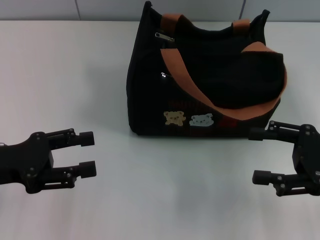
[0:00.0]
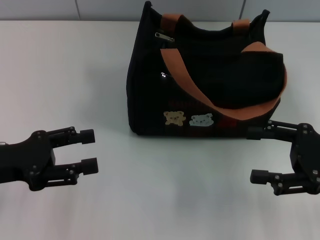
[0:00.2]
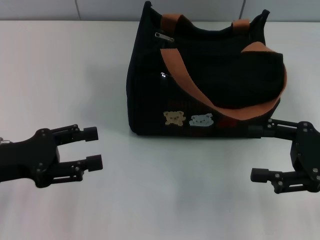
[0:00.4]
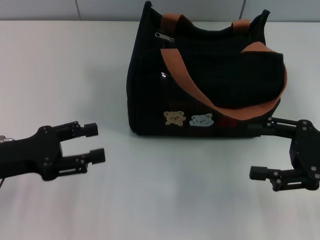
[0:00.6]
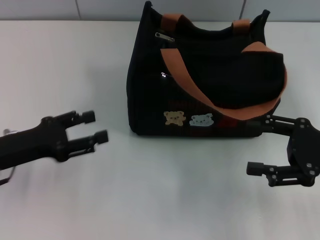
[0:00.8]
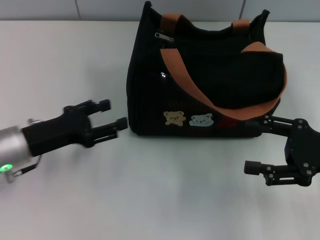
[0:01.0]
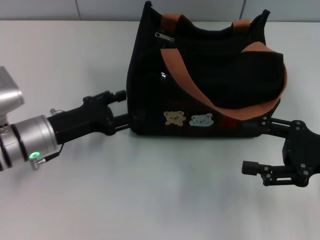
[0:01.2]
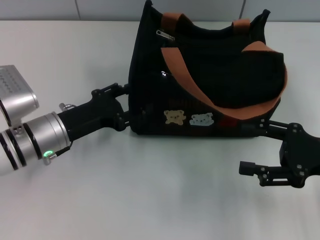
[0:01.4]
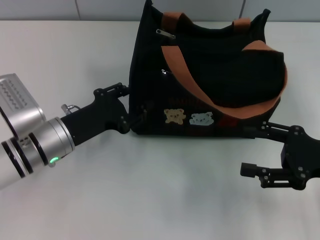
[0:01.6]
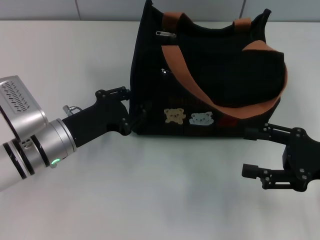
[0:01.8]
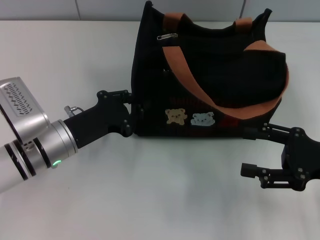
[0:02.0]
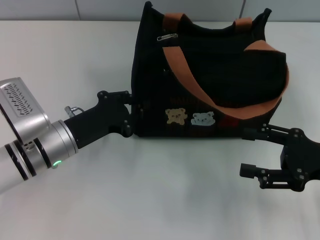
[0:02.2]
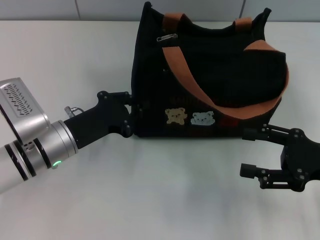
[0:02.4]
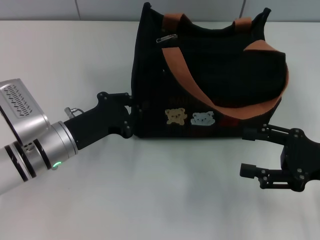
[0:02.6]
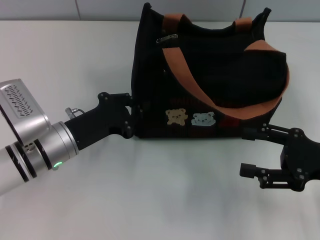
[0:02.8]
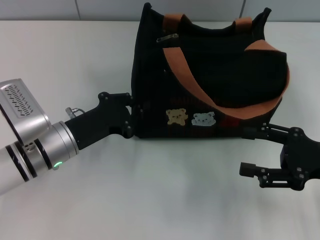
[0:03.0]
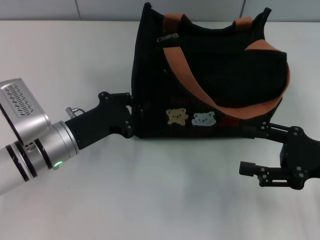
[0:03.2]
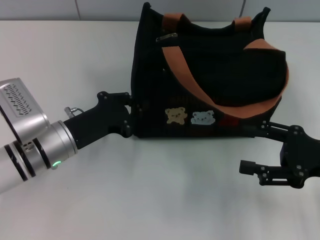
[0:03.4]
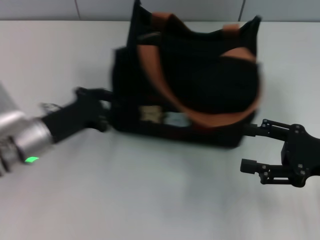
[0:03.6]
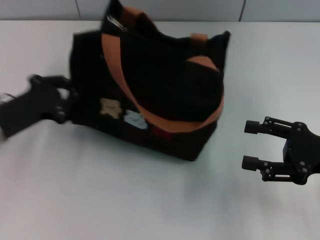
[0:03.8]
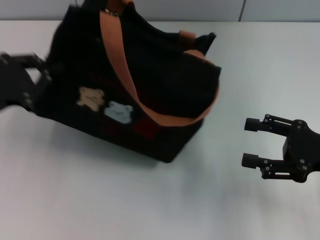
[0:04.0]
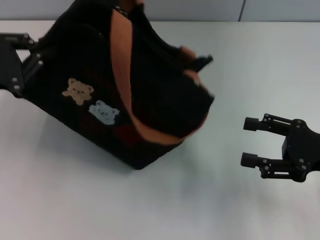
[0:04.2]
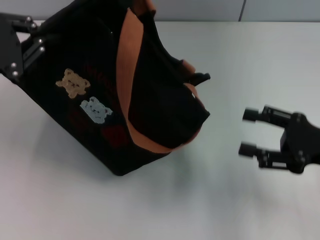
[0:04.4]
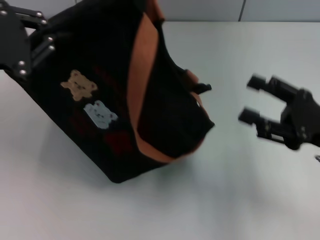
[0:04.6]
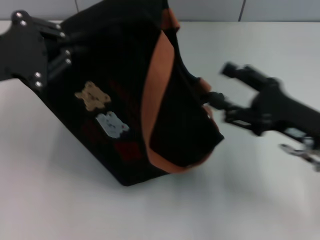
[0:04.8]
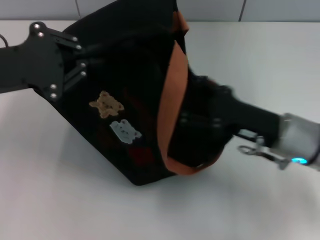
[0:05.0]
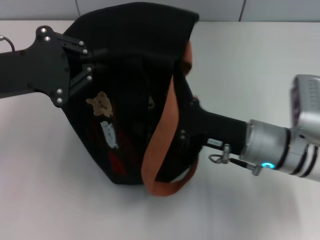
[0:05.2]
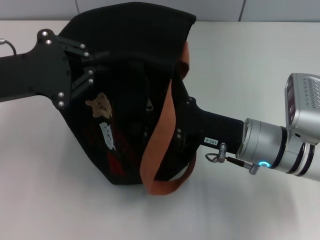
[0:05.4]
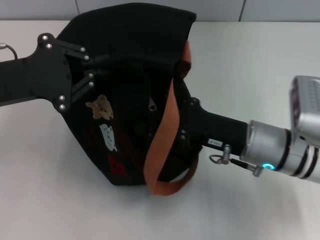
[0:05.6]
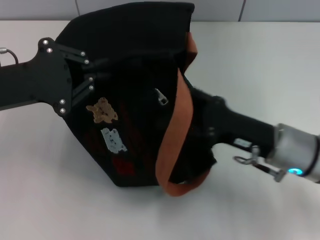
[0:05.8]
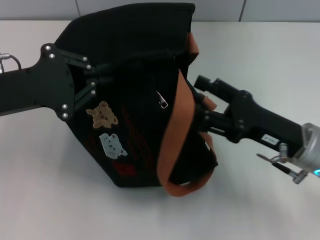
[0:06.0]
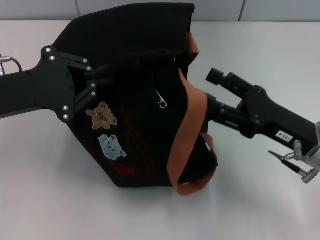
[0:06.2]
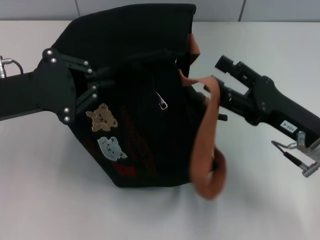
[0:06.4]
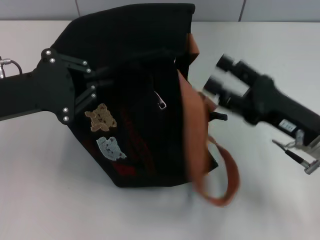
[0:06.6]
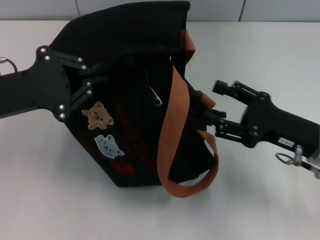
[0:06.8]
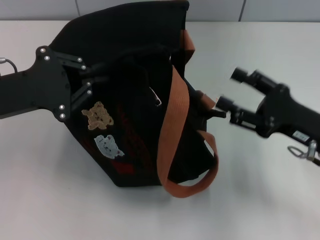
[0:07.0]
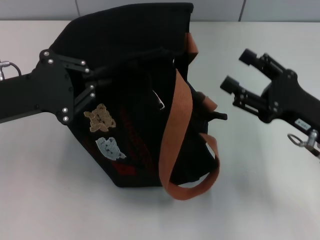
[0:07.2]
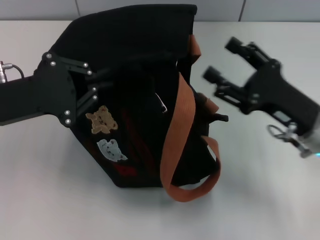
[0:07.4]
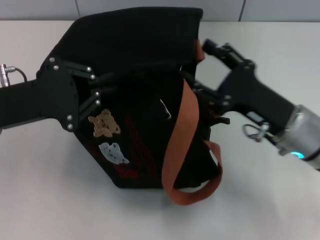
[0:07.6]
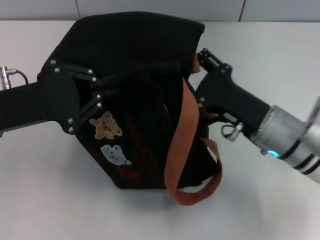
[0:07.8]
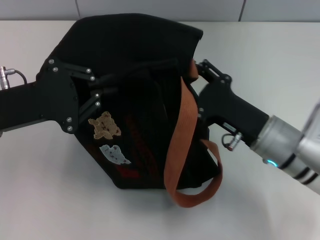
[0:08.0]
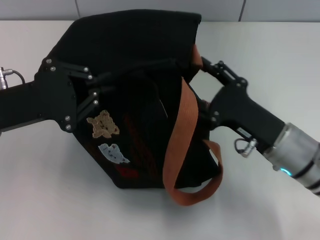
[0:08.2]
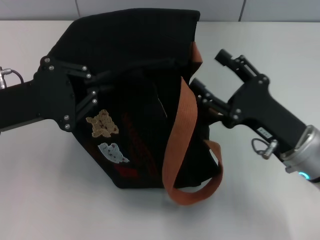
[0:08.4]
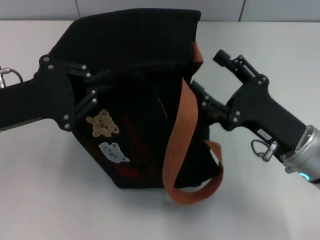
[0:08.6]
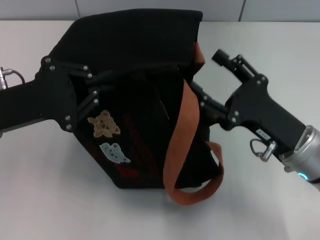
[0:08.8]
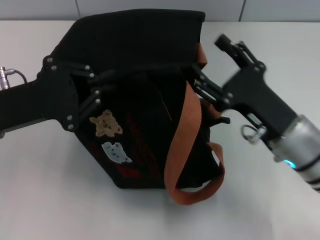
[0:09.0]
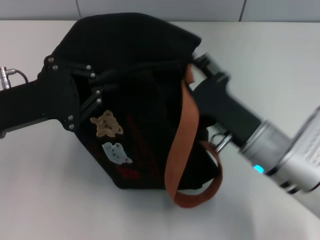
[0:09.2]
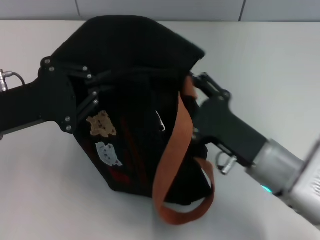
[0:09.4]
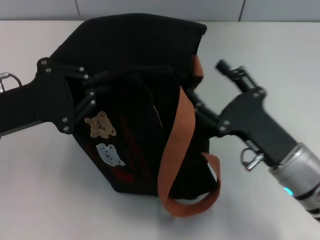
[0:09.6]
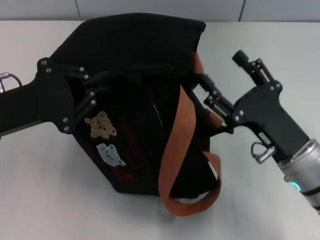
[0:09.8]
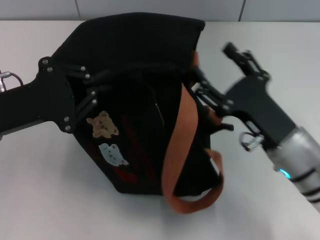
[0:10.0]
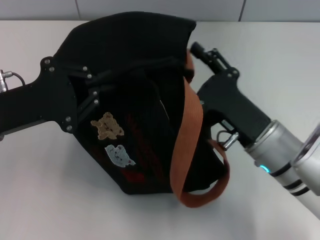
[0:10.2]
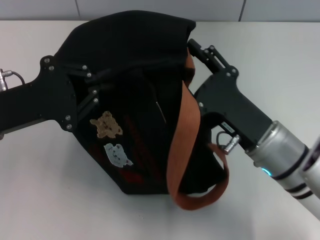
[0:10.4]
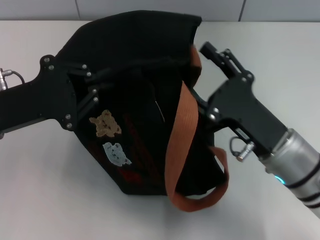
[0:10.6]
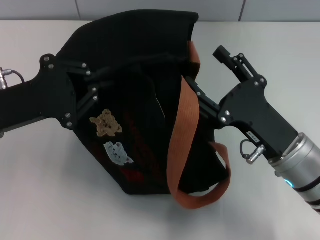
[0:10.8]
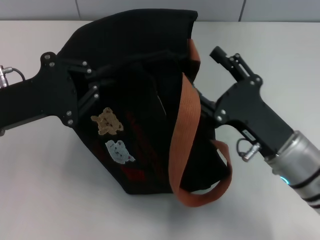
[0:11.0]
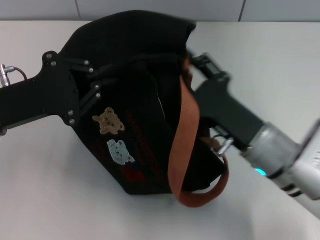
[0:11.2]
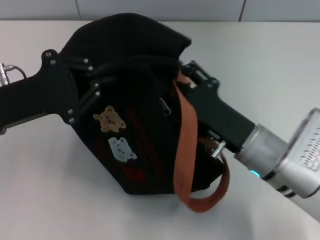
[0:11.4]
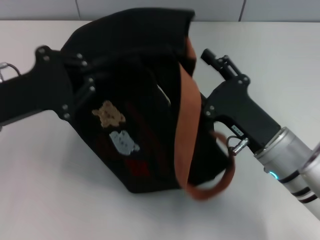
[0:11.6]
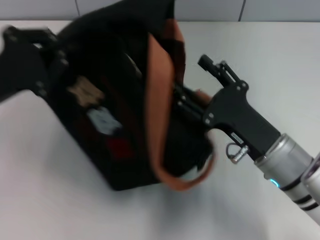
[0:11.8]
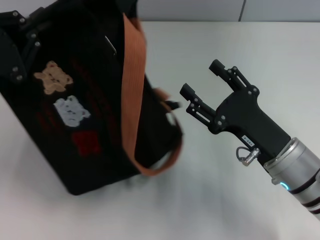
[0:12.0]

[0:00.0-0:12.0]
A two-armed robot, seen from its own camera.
0:00.0 to 0:01.6: The left gripper is displaced to the right, downward and forward by roughly 15 cm.
0:01.6 to 0:03.0: The left gripper closes its fingers.
0:03.0 to 0:04.4: The left gripper moves upward and to the left, about 20 cm.
0:04.4 to 0:06.0: The left gripper changes place by roughly 5 cm. Meanwhile the right gripper moves to the left, about 5 cm.
0:07.6 to 0:10.4: The grippers make only small movements.

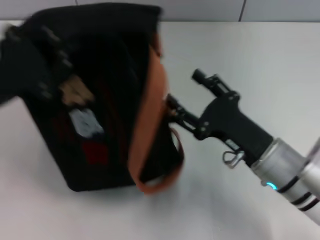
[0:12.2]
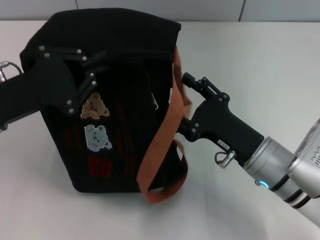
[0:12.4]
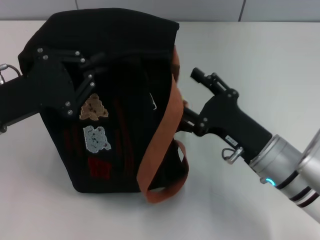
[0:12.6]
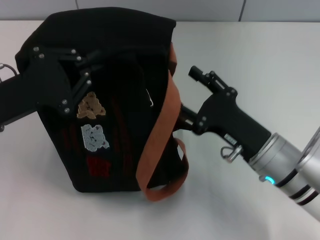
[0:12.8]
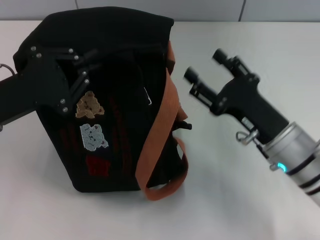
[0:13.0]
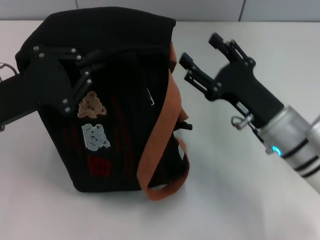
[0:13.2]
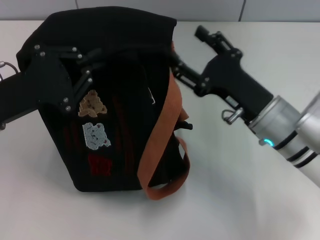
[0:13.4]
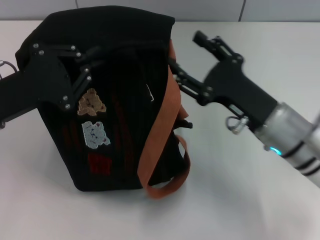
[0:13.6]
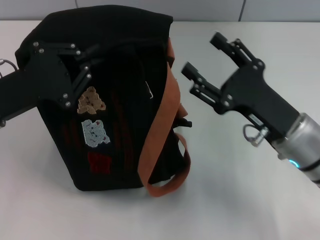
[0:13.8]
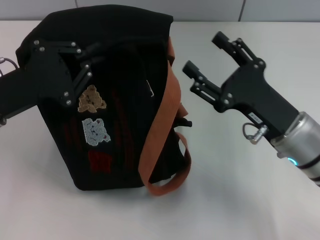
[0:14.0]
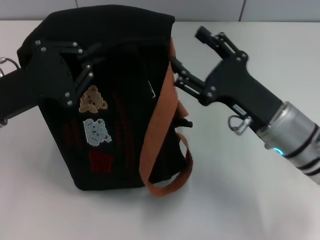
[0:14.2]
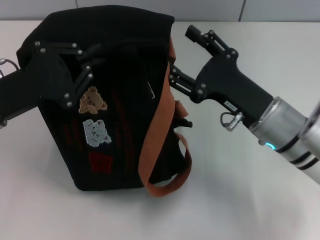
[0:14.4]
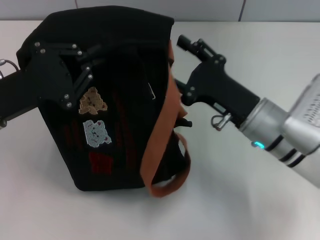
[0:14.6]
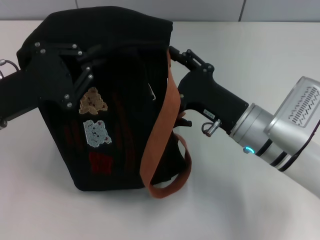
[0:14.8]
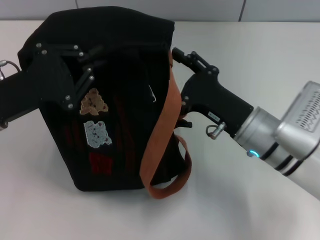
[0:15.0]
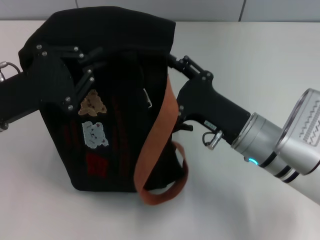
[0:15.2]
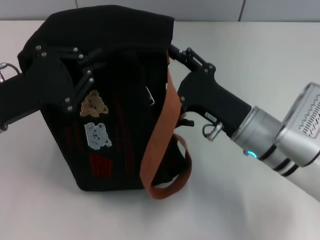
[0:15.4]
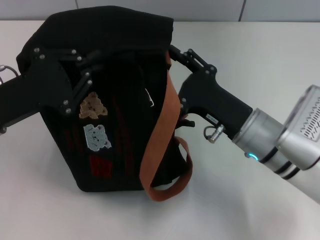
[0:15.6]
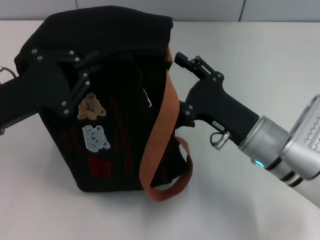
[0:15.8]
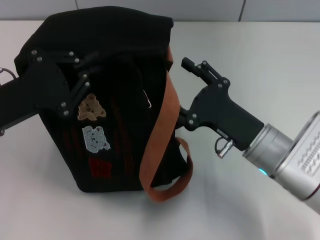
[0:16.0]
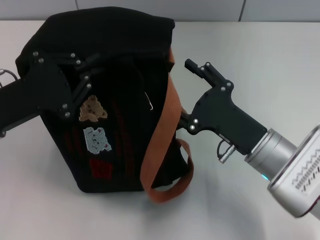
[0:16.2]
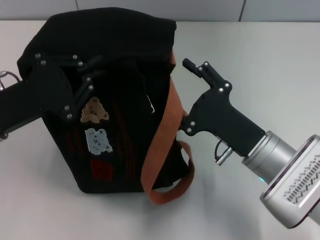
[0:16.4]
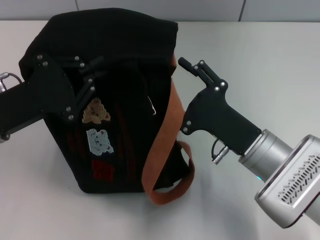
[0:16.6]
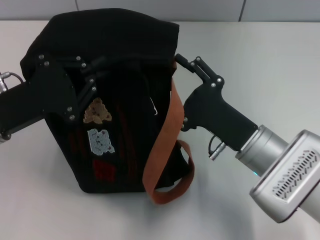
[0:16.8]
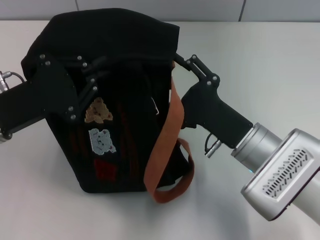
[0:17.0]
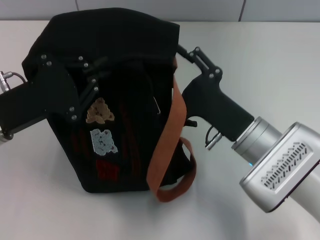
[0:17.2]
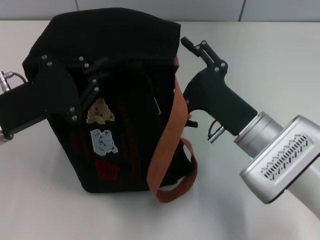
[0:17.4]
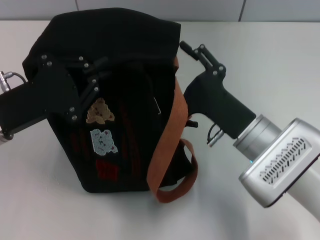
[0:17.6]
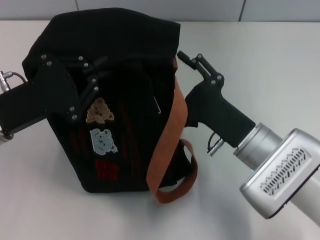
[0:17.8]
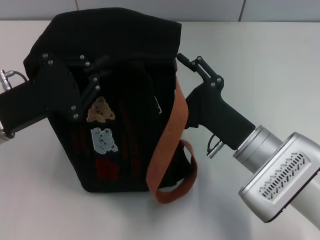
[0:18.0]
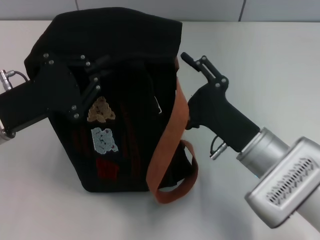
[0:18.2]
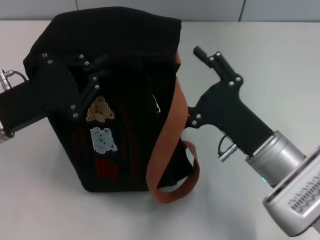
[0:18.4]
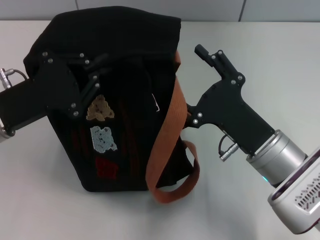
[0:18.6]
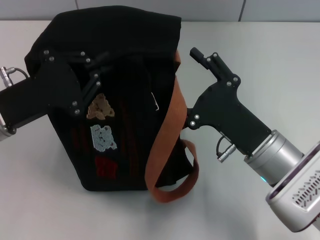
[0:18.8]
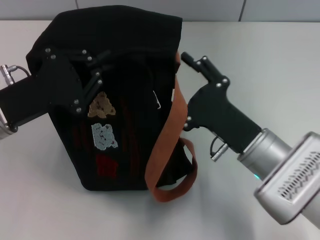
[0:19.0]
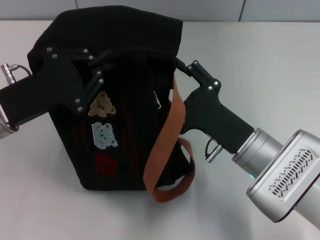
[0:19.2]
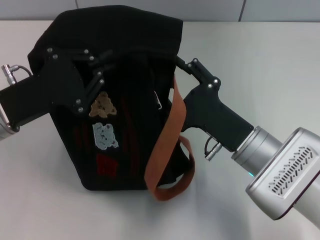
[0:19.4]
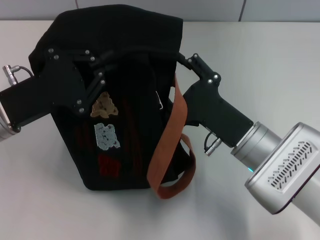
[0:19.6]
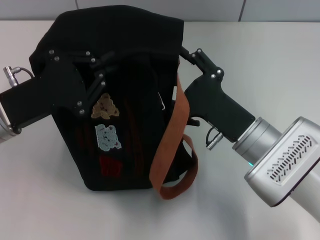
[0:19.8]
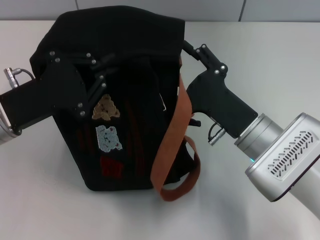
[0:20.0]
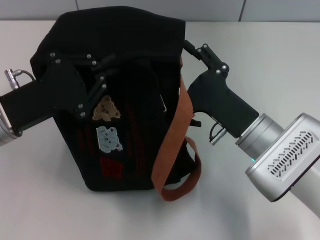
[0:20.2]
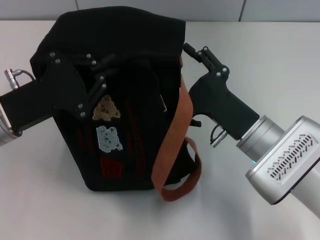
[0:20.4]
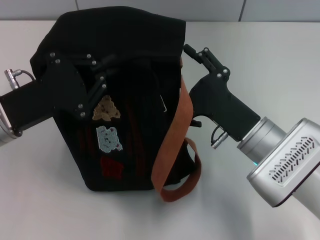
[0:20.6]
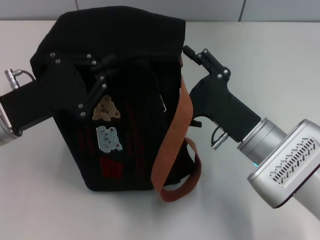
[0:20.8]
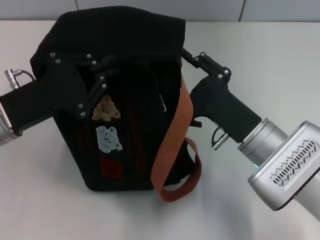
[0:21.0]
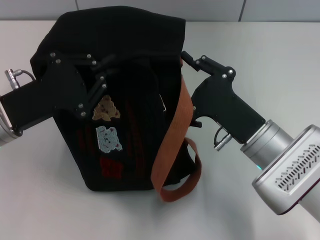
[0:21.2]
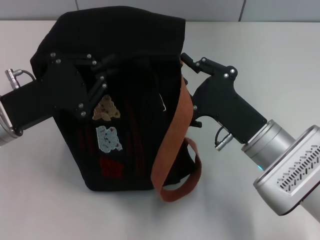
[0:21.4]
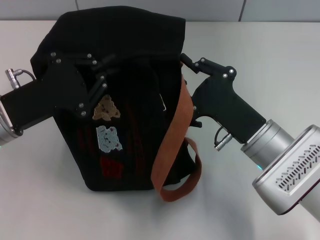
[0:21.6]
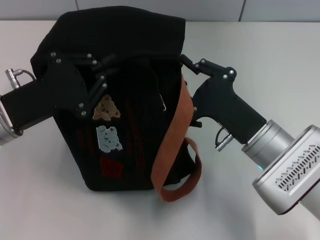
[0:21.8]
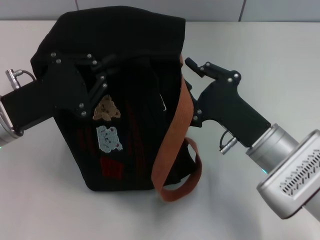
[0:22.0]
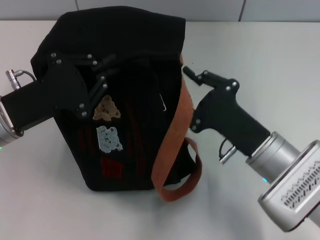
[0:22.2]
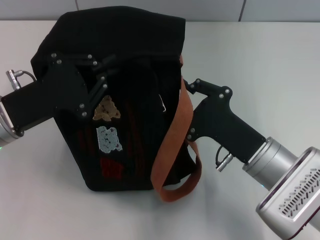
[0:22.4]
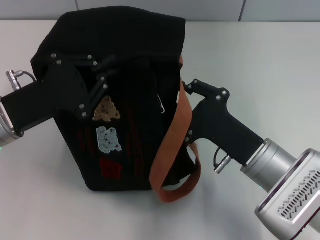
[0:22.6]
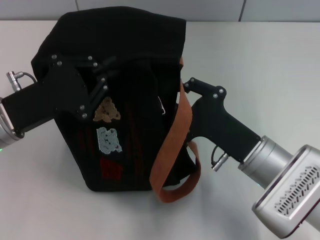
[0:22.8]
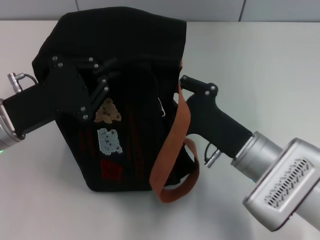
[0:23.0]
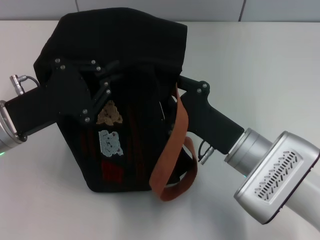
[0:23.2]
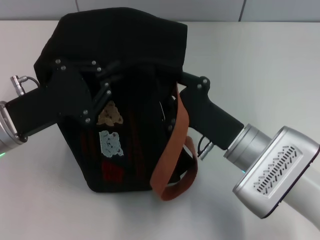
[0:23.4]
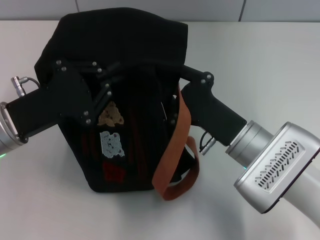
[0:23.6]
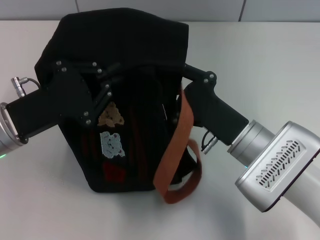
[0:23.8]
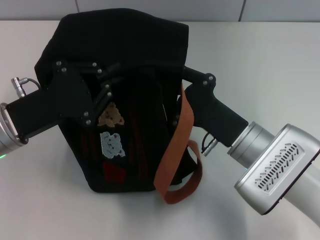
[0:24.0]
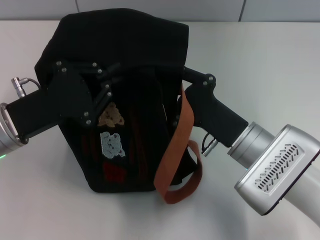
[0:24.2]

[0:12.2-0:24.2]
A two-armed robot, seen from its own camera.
0:16.6 to 0:19.8: The grippers move only a little.
0:19.8 to 0:21.2: The right gripper closes its fingers.
0:21.2 to 0:24.2: The grippers make only small movements.
